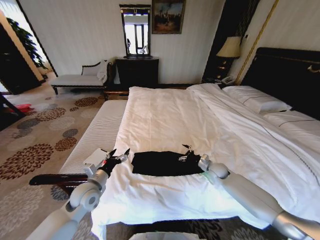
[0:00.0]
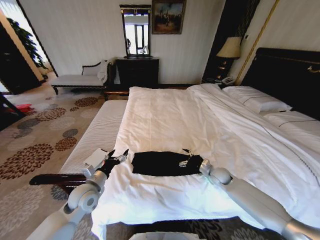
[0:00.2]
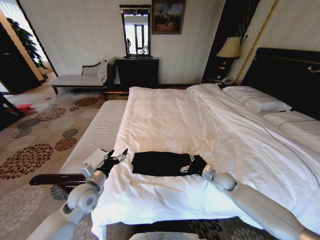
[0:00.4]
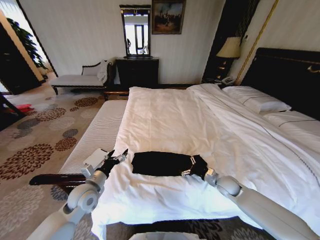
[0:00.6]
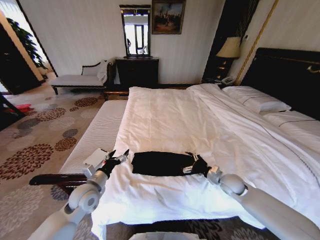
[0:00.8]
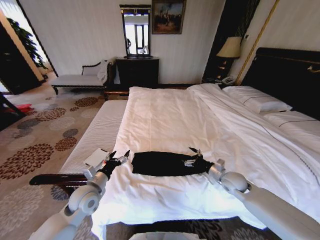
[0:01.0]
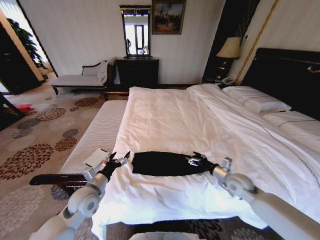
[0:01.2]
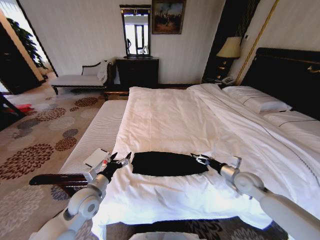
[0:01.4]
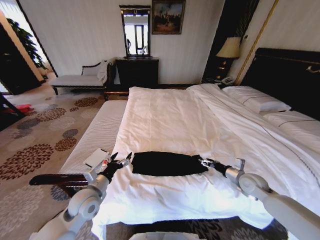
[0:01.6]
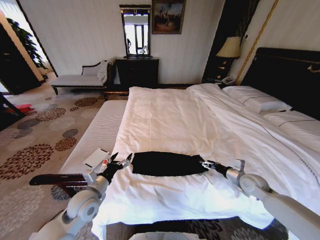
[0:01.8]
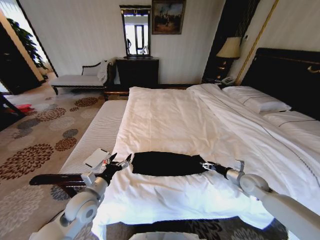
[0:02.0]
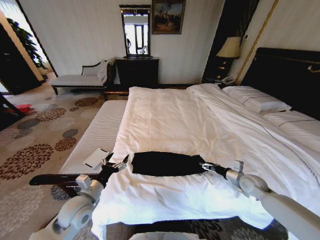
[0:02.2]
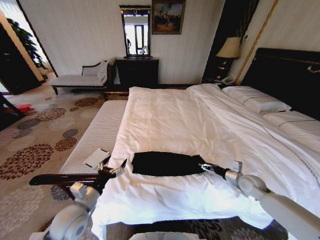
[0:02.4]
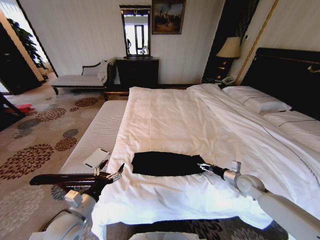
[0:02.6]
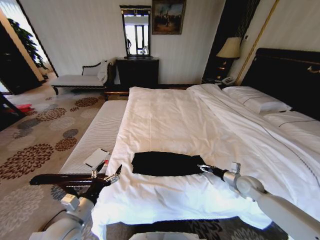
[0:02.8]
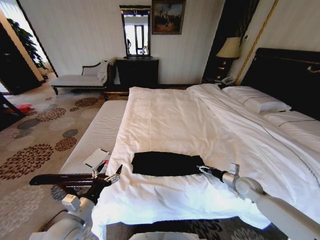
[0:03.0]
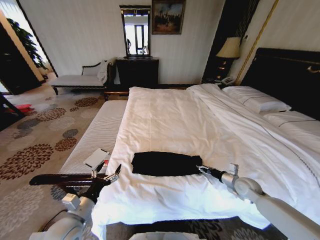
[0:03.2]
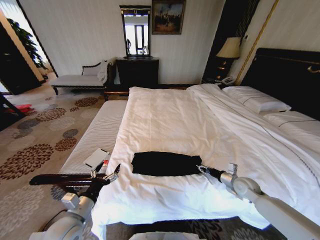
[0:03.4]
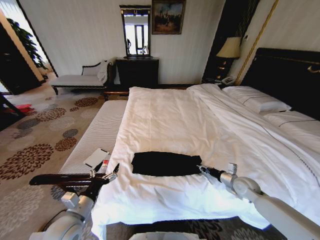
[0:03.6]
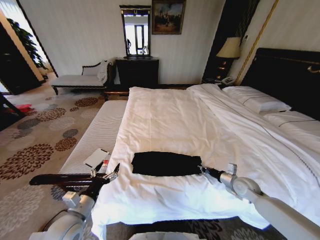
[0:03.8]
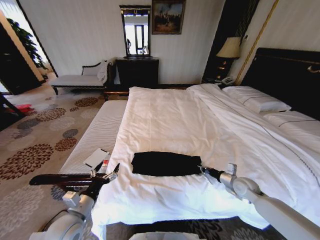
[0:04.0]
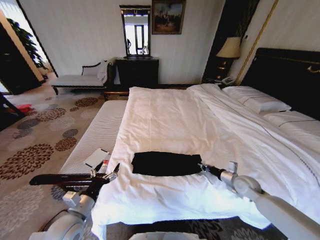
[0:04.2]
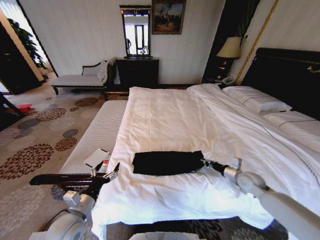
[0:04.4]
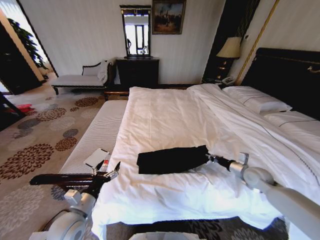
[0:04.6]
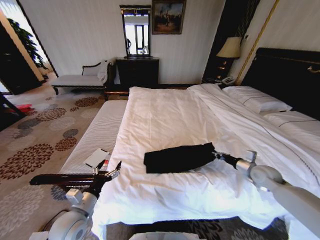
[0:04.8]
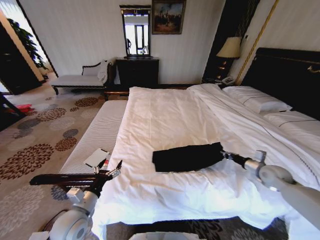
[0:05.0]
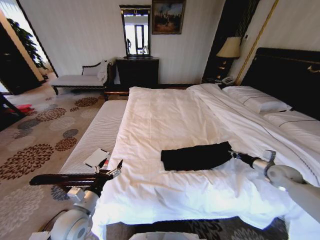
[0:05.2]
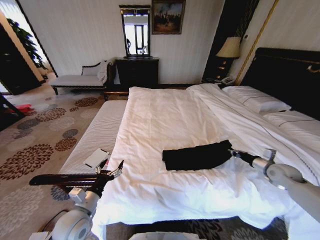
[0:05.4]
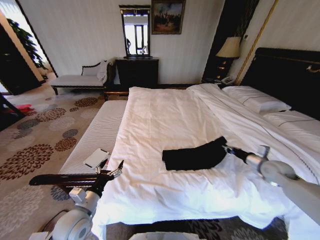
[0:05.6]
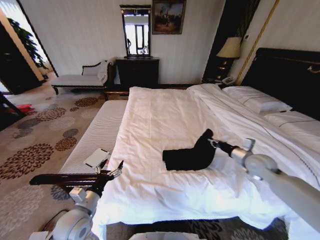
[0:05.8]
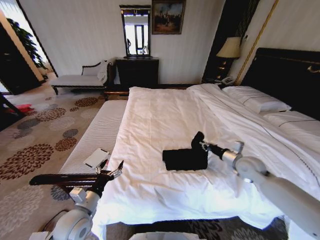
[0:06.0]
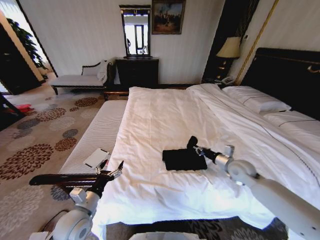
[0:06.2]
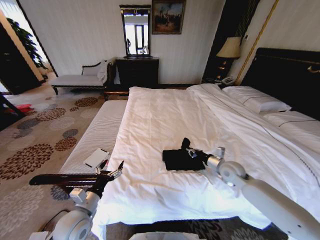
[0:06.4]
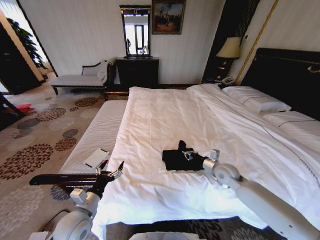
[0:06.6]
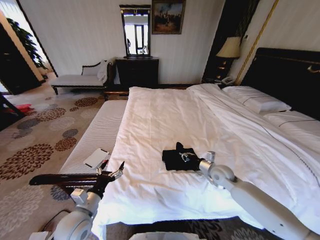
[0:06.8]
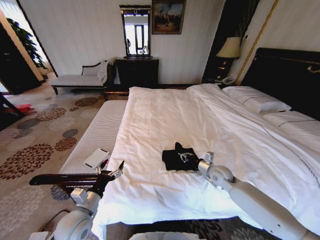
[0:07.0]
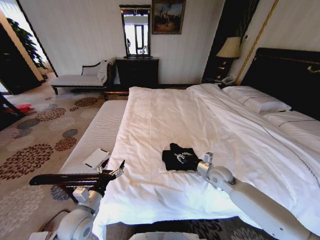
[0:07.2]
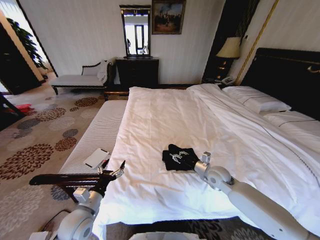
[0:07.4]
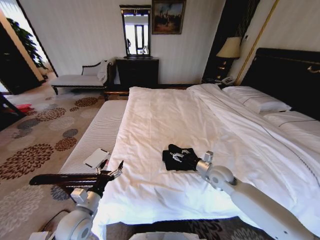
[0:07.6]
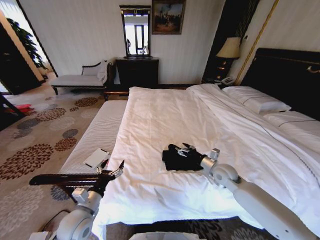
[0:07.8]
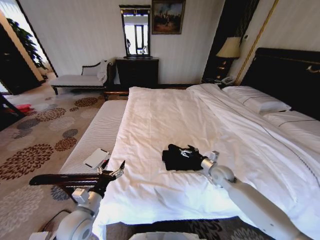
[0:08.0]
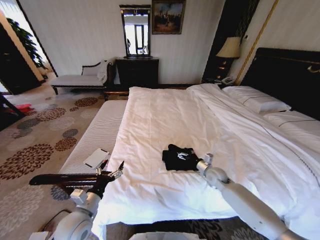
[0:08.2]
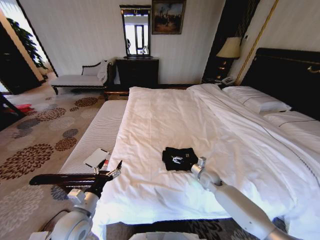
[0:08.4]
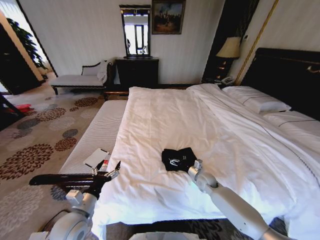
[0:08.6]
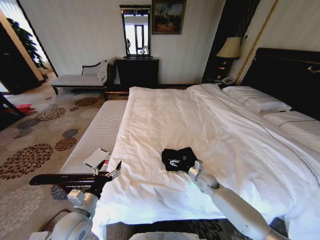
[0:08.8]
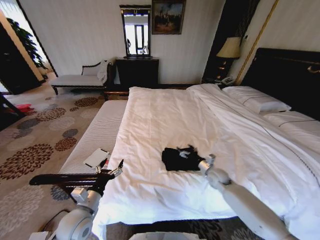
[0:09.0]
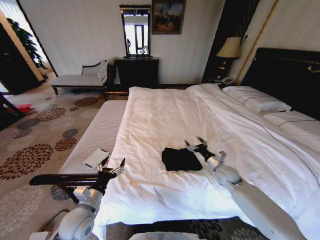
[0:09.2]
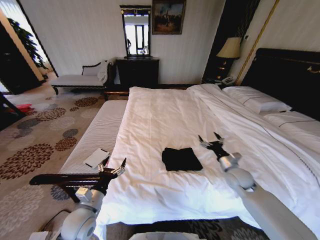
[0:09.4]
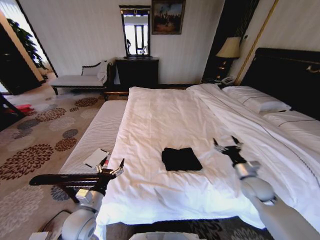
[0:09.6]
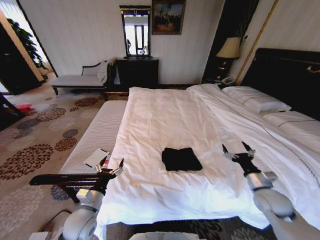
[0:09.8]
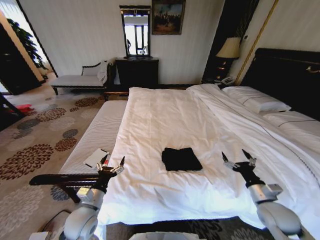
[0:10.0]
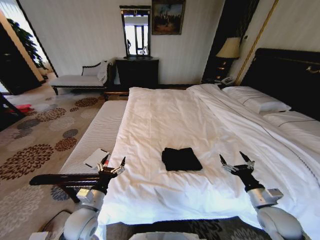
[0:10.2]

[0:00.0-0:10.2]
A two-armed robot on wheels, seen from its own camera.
Task of the whole recording: Fold the clothes on the bed.
0:00.0 to 0:01.4: The right gripper moves backward and upward, some 15 cm.
0:01.4 to 0:03.0: The left gripper shifts about 10 cm backward, while the right gripper is displaced downward by some 5 cm.
0:03.0 to 0:04.4: The right gripper closes.
0:04.4 to 0:05.8: The right gripper goes some 10 cm upward, and goes to the right and returns, approximately 15 cm each way.
0:05.8 to 0:07.2: The right gripper is displaced to the left and downward by some 15 cm.
0:07.2 to 0:08.8: The right gripper is displaced downward by about 10 cm, and opens its fingers.
0:08.8 to 0:10.2: The right gripper heads backward, to the right and upward, covering approximately 25 cm.

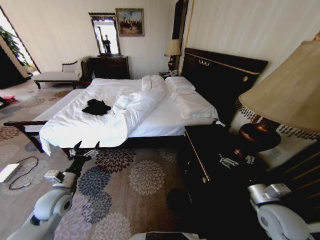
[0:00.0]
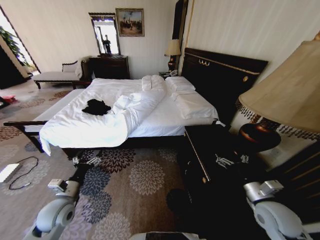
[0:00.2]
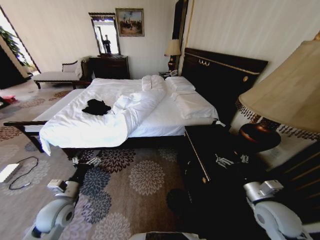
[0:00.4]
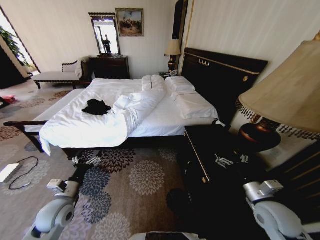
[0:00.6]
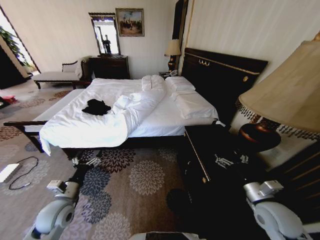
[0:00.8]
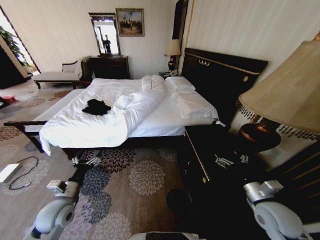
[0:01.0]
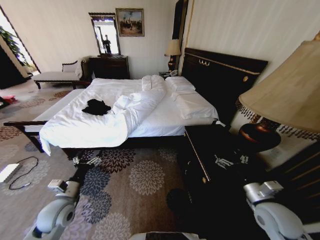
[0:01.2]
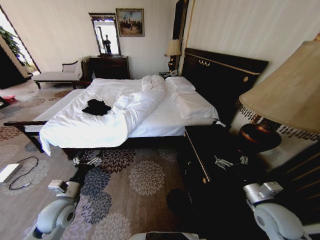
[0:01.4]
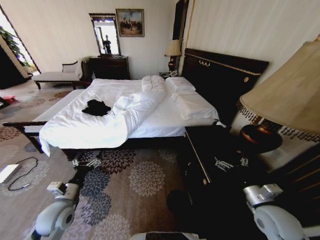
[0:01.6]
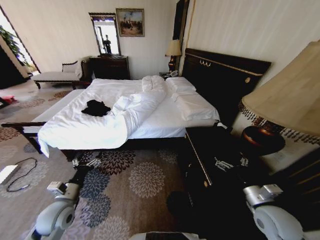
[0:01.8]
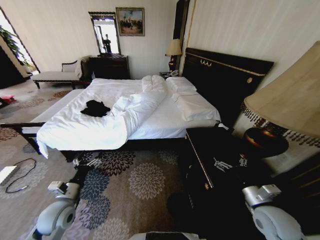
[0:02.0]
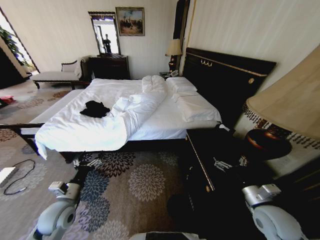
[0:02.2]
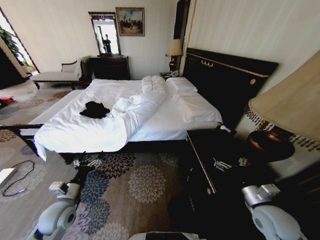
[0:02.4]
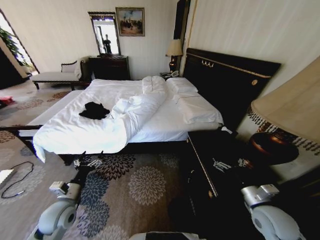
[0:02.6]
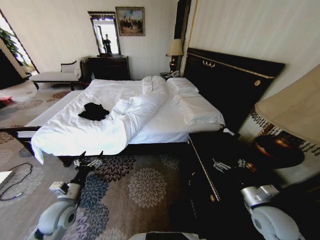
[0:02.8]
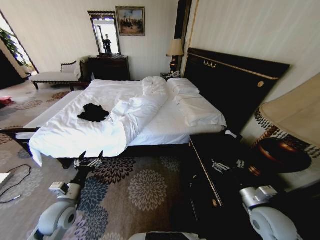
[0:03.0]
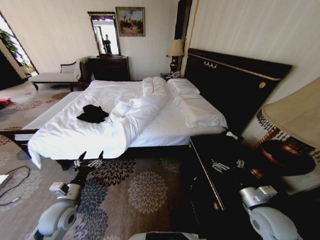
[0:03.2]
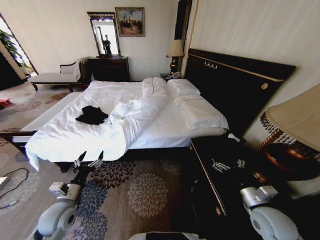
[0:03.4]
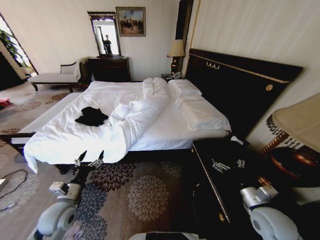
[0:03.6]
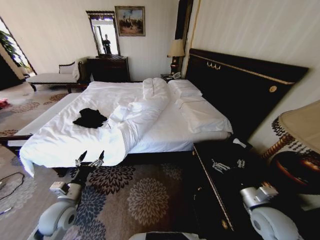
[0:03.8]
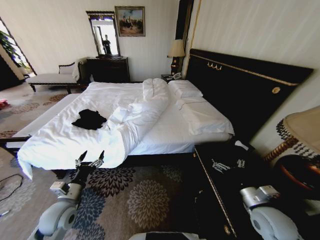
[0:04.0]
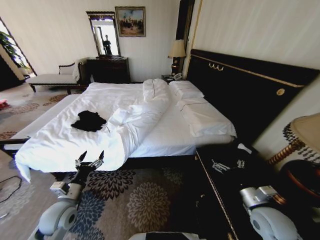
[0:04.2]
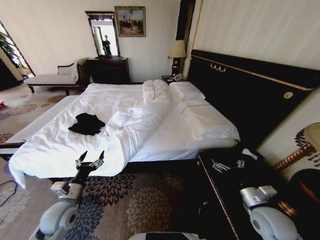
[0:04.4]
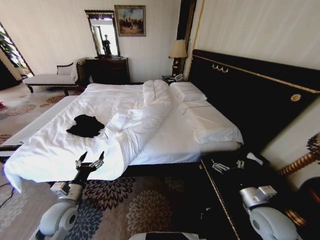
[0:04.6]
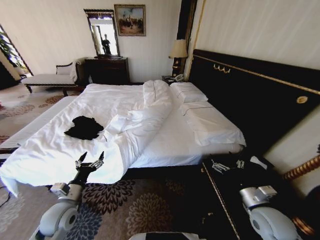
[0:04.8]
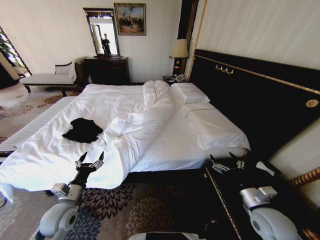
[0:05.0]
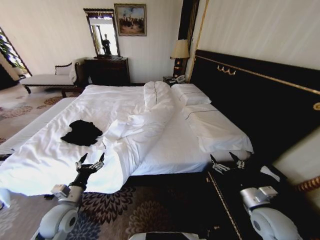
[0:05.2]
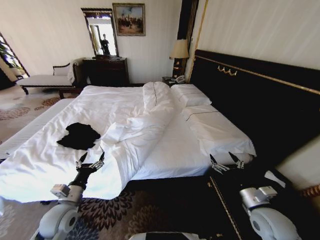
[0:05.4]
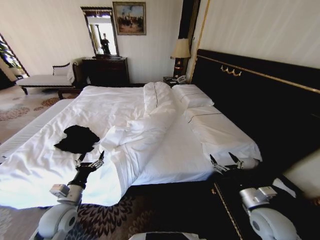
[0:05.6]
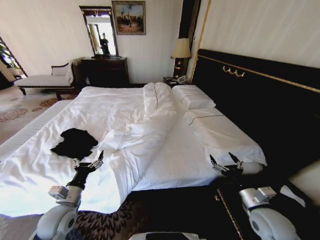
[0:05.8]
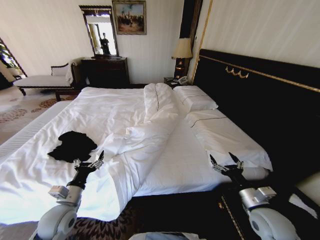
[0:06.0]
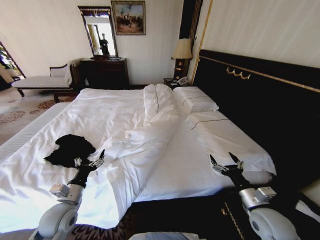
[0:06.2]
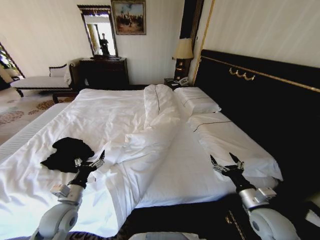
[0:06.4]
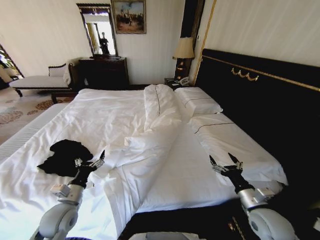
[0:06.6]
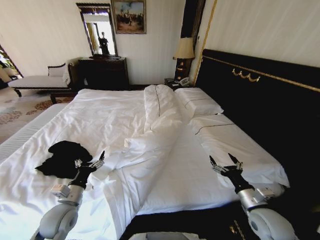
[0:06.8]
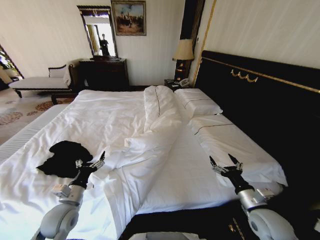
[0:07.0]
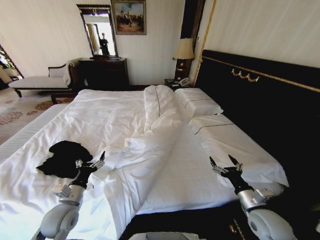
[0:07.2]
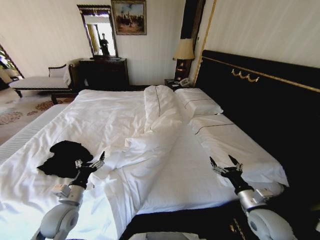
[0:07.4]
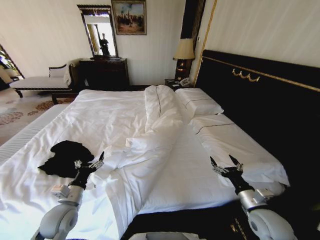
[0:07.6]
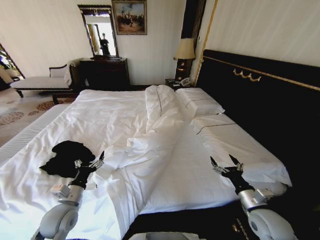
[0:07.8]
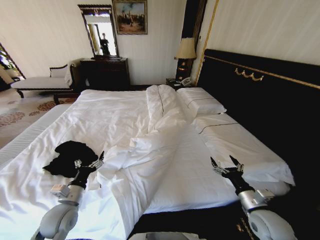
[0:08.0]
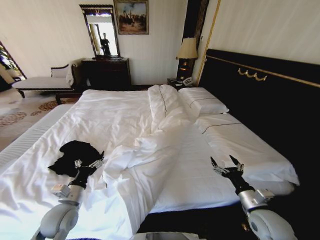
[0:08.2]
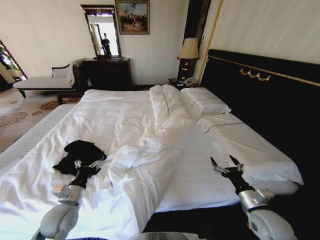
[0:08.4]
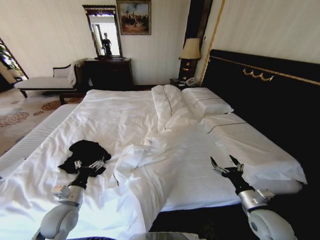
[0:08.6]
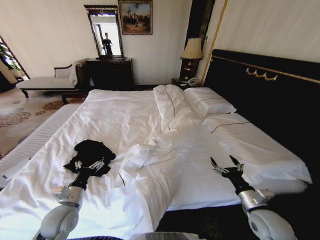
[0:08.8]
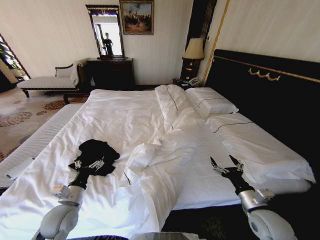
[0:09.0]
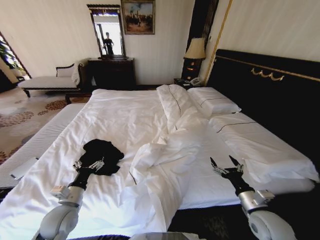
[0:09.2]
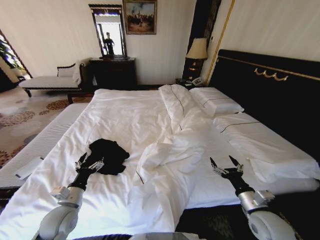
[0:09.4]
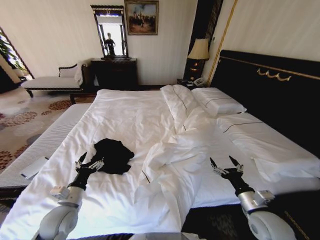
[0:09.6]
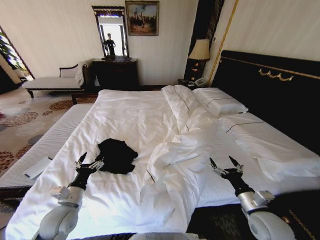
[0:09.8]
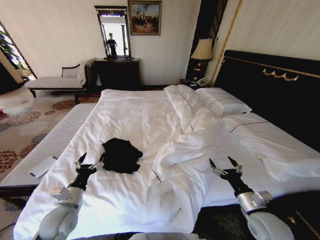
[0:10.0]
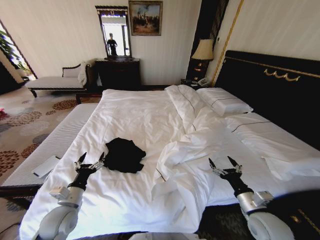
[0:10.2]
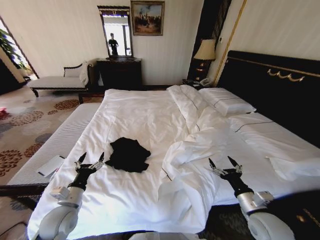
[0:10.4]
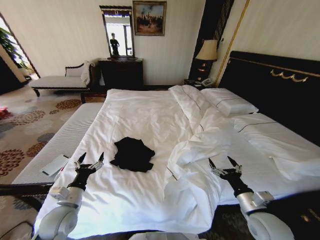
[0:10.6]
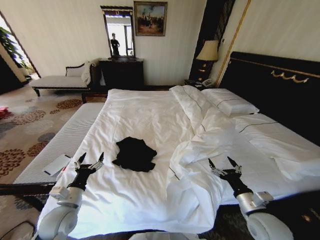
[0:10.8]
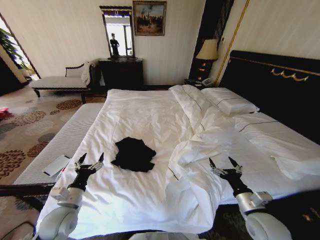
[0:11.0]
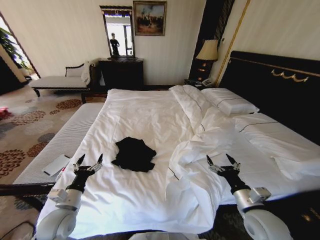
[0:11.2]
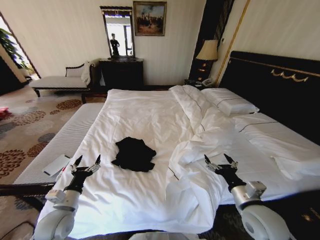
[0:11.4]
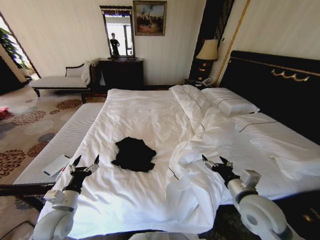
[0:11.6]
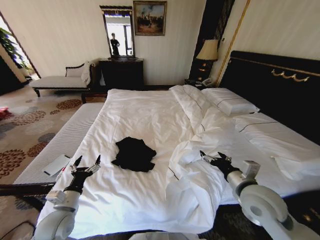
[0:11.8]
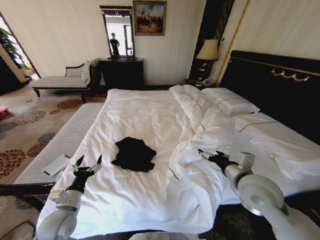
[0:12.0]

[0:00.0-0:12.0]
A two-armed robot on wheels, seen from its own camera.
Task of the whole recording: Fold the clothes on the bed.
0:10.4 to 0:12.0: The right gripper heads upward, forward and to the left, covering some 15 cm.
